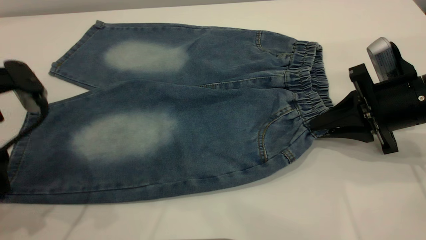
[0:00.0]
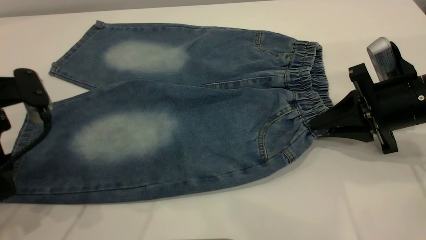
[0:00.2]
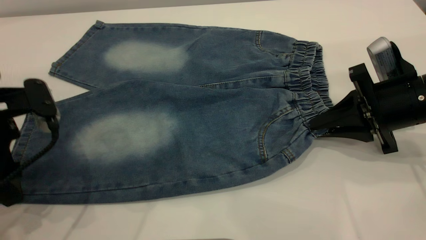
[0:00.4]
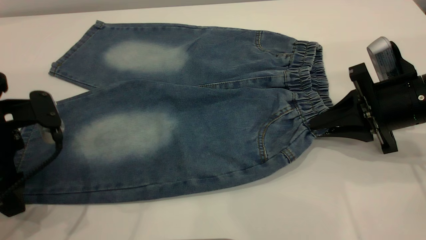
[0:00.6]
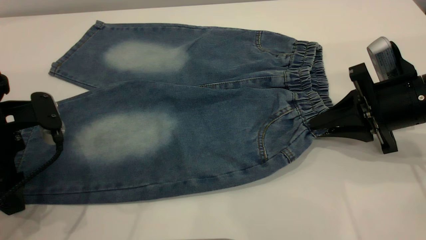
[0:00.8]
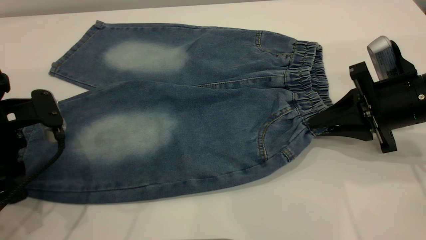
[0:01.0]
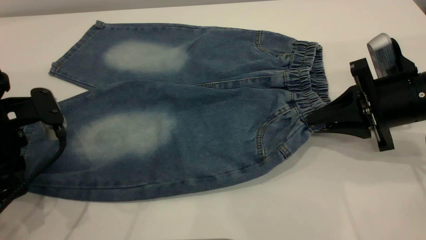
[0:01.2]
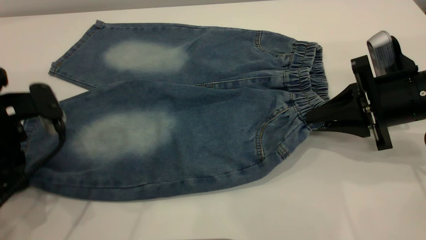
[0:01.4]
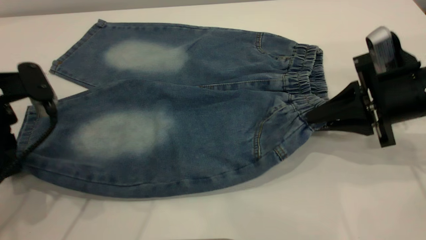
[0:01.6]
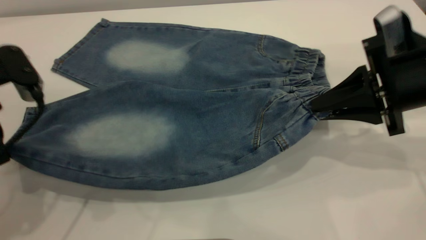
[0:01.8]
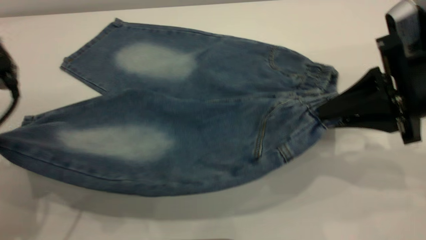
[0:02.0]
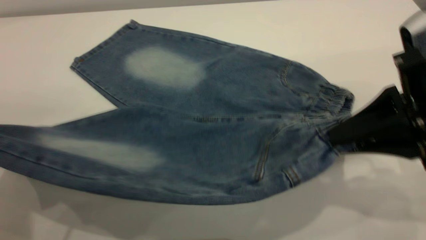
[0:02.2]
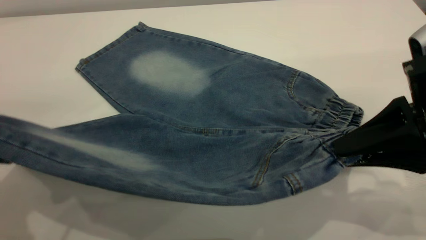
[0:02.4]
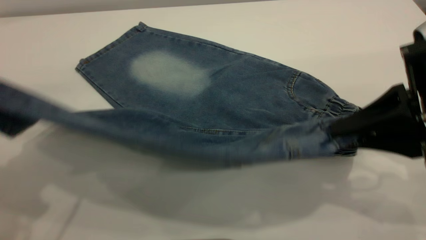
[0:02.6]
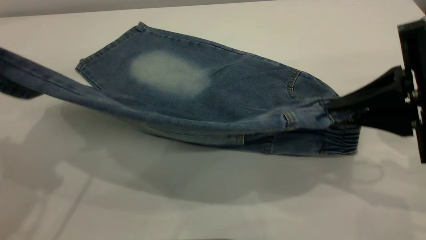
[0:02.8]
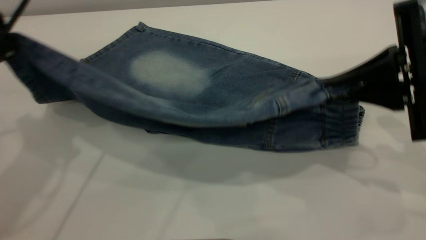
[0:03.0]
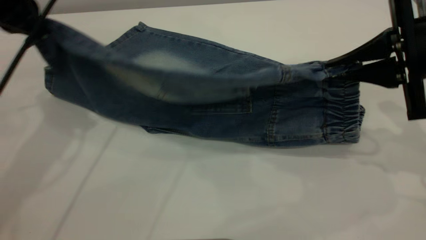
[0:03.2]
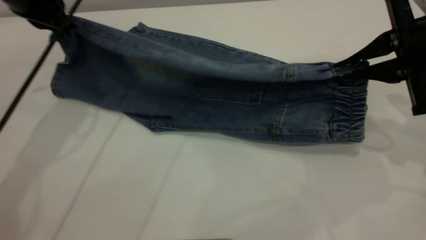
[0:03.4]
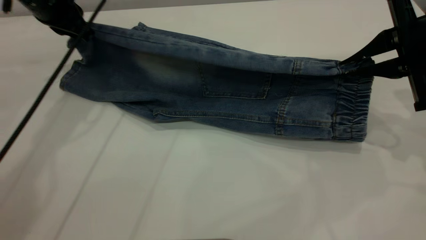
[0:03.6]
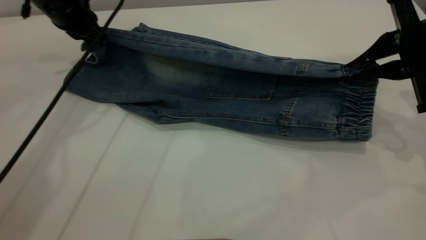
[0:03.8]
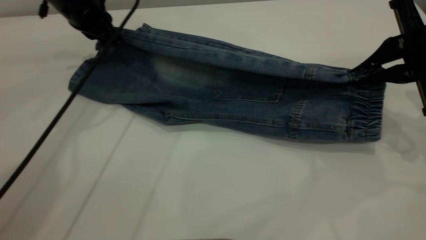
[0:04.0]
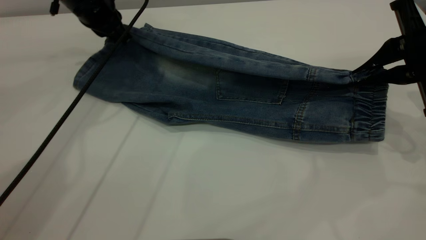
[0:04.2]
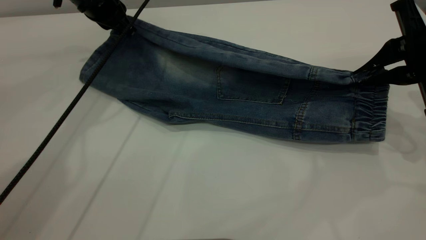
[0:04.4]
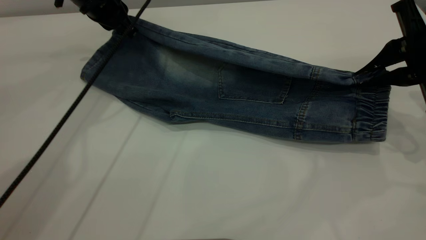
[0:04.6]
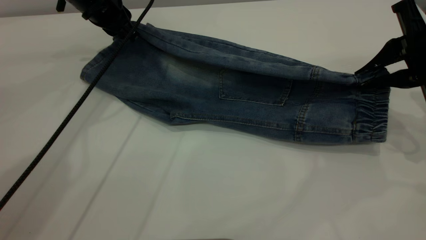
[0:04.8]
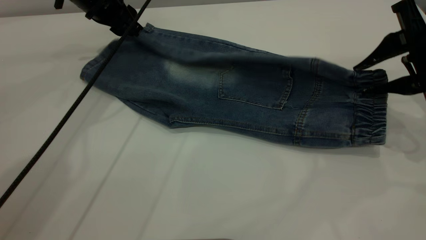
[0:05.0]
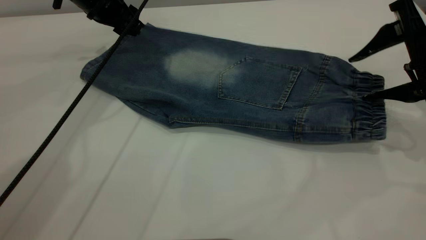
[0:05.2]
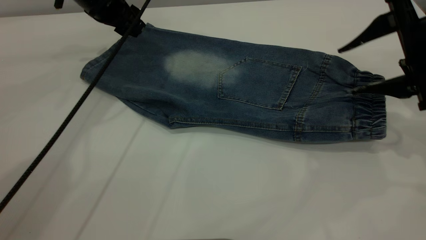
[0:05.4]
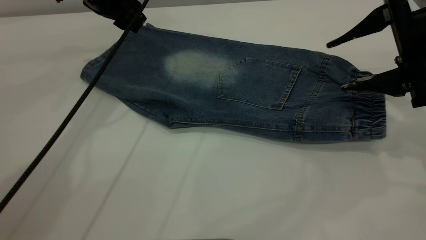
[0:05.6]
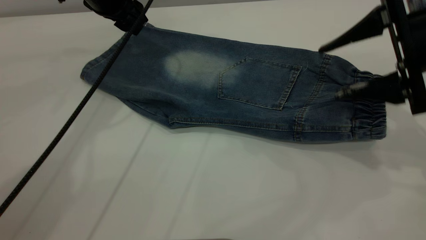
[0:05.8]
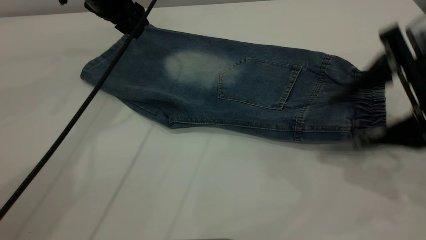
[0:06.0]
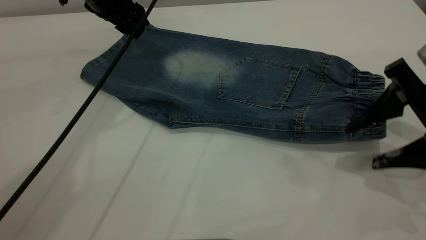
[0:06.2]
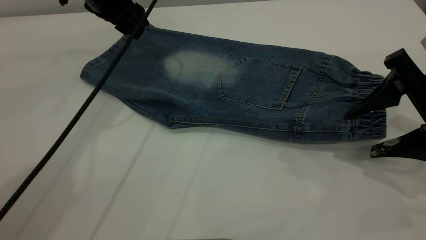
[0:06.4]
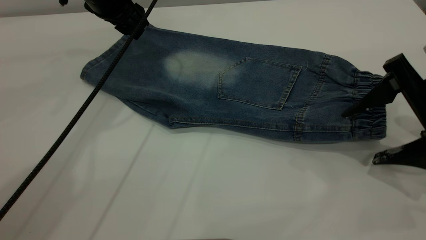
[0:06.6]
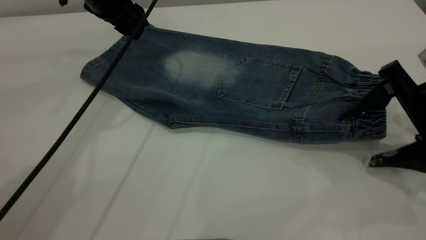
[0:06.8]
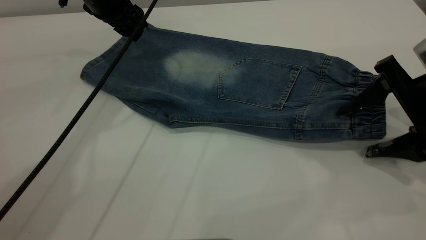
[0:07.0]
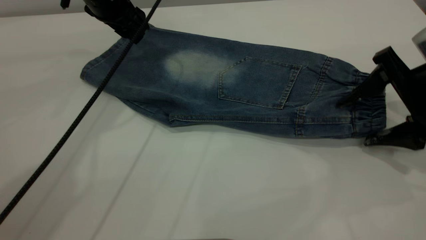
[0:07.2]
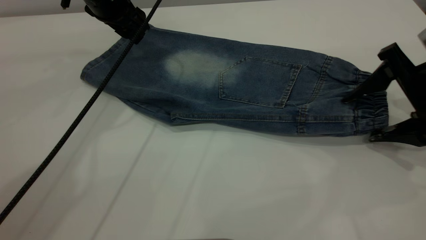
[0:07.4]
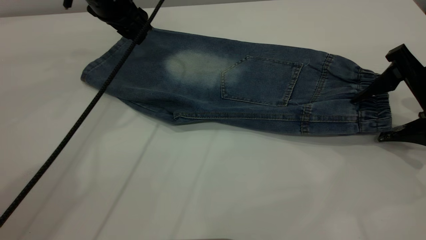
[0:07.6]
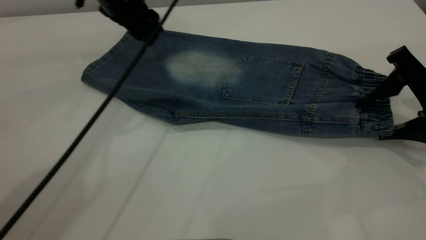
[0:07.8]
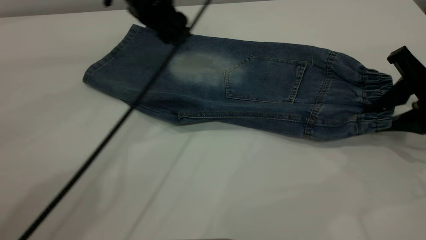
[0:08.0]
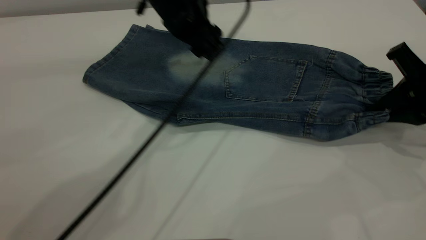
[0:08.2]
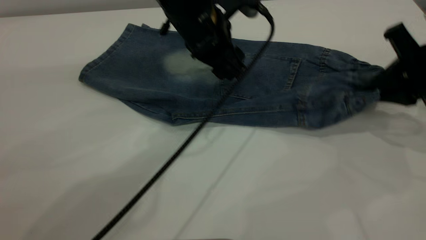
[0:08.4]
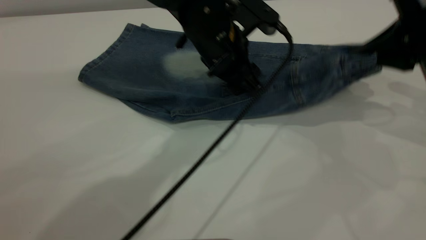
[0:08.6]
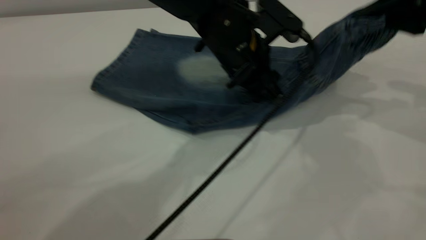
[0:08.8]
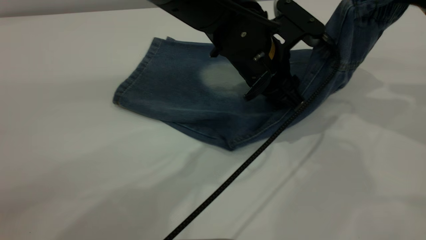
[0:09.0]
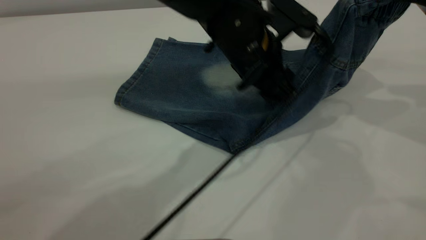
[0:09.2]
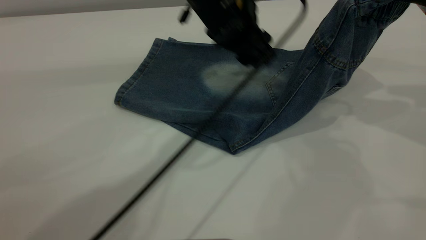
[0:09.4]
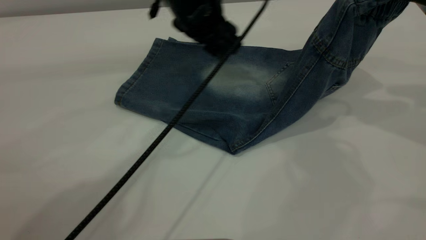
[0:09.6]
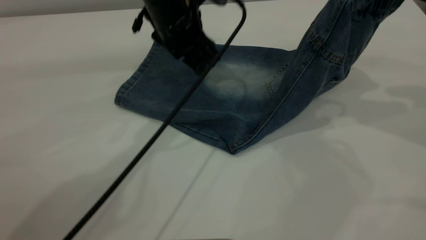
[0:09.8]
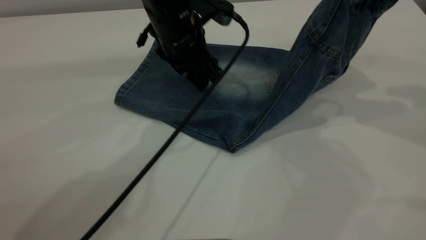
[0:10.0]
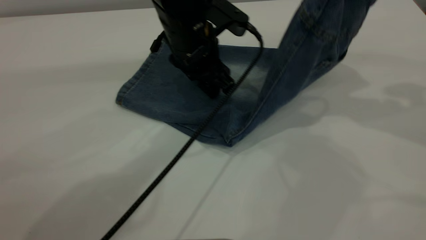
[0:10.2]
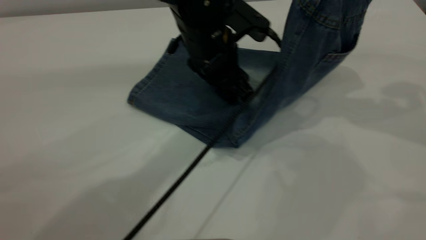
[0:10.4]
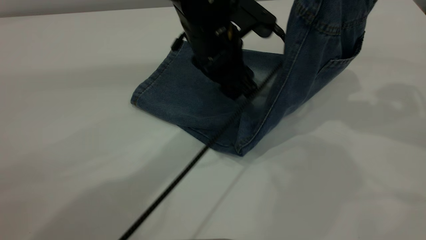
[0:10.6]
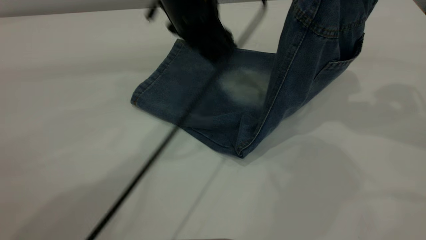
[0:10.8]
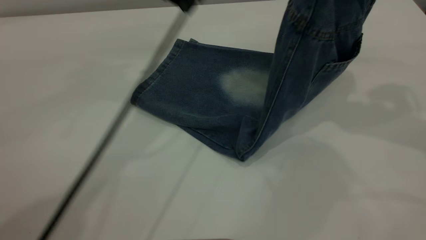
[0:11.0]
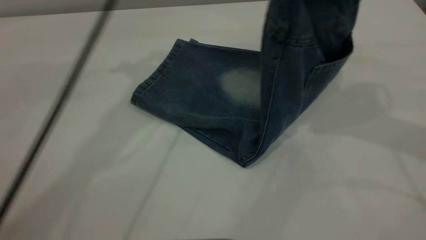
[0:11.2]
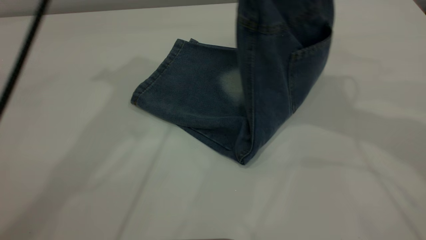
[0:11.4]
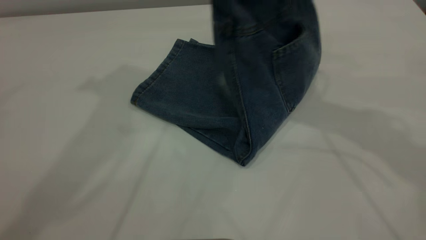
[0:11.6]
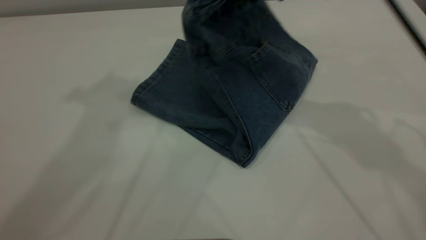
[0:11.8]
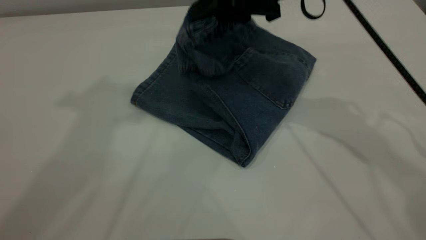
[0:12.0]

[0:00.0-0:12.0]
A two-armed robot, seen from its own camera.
Step, 0:00.0 to 0:05.8: Fold the bottom of the pants upward.
0:00.0 to 0:01.6: The left gripper closes up.
0:01.6 to 0:03.0: The left gripper moves upward and forward, some 10 cm. The right gripper travels upward by roughly 5 cm.
0:03.0 to 0:04.4: The right gripper travels forward by about 5 cm, while the left gripper goes some 20 cm forward, downward and to the right.
0:04.4 to 0:06.0: The left gripper opens its fingers. Meanwhile the right gripper is displaced backward by approximately 5 cm, and opens.
0:06.0 to 0:07.6: The right gripper shifts by some 5 cm.
0:07.6 to 0:09.0: The left gripper moves to the right and backward, approximately 25 cm, while the right gripper heads upward, covering roughly 15 cm, and closes its fingers.
0:09.0 to 0:10.4: The left gripper is displaced to the left by approximately 5 cm.
0:10.4 to 0:12.0: The right gripper goes roughly 20 cm to the left. Meanwhile the left gripper shifts approximately 40 cm upward and to the left.

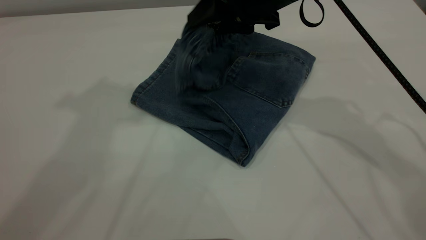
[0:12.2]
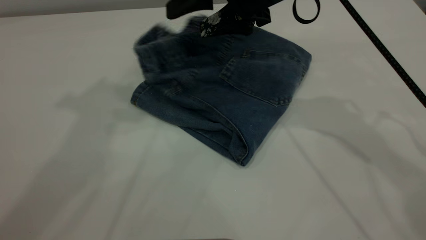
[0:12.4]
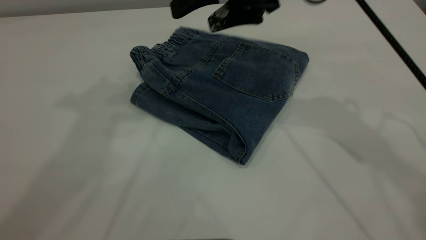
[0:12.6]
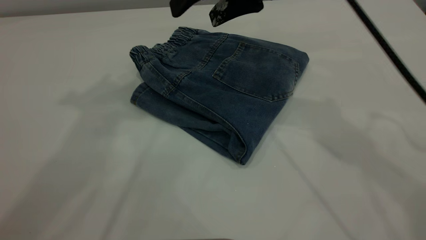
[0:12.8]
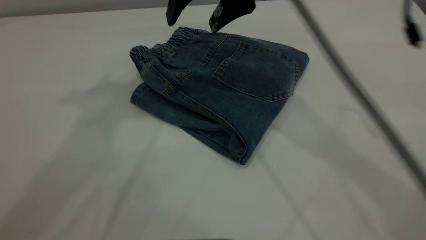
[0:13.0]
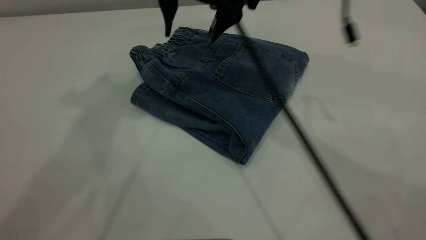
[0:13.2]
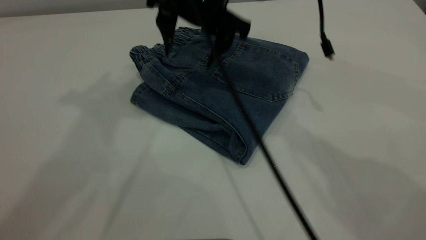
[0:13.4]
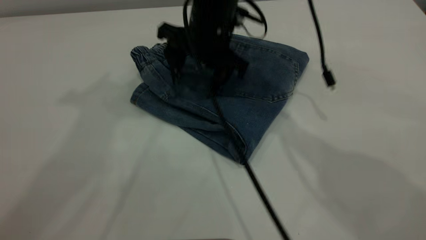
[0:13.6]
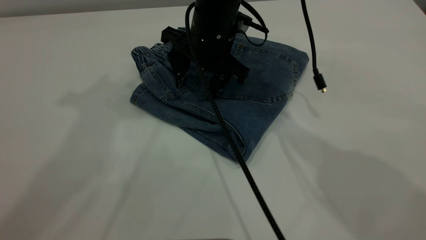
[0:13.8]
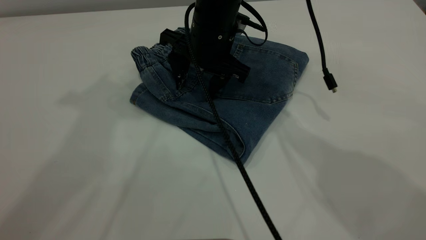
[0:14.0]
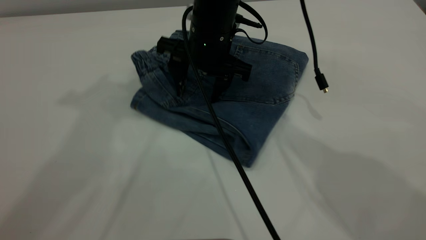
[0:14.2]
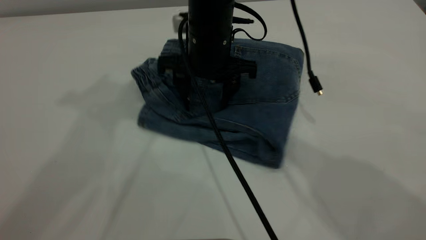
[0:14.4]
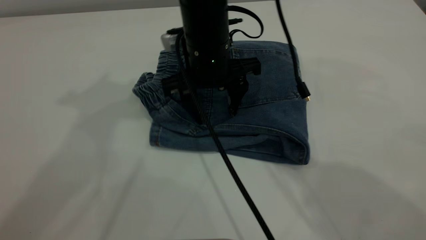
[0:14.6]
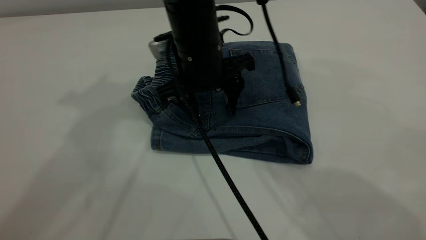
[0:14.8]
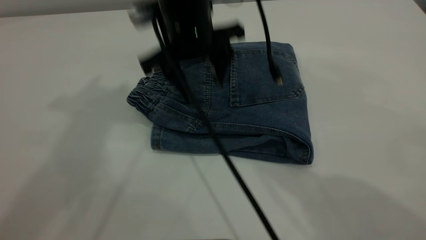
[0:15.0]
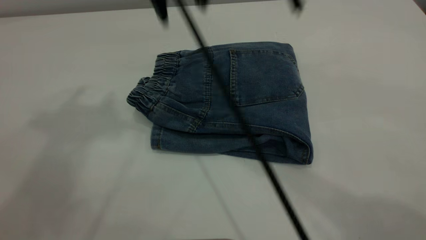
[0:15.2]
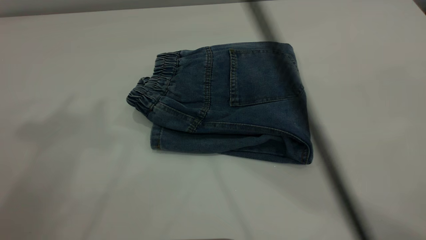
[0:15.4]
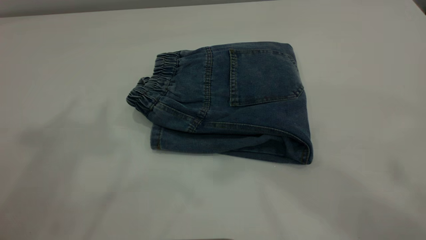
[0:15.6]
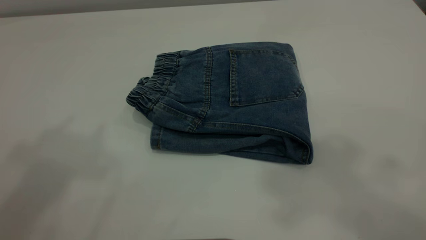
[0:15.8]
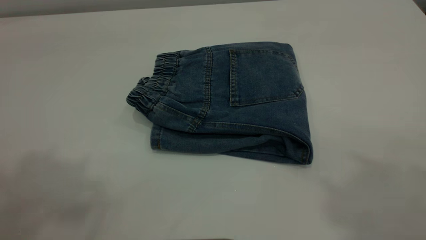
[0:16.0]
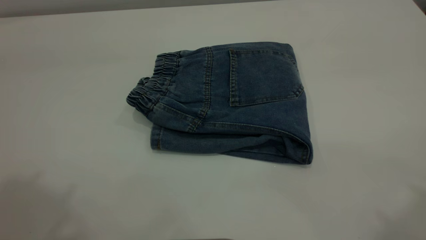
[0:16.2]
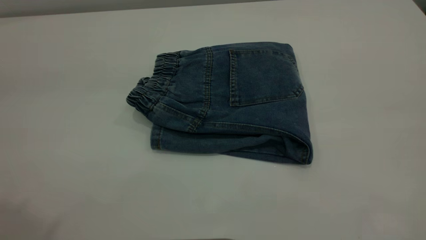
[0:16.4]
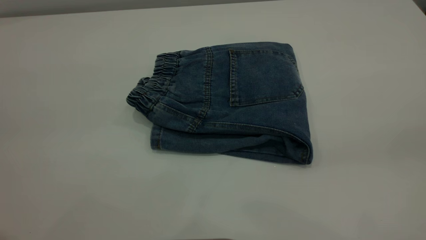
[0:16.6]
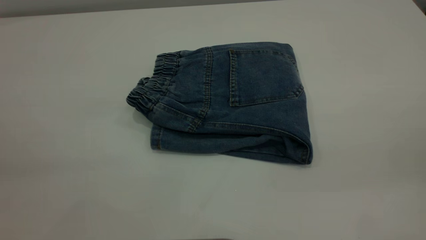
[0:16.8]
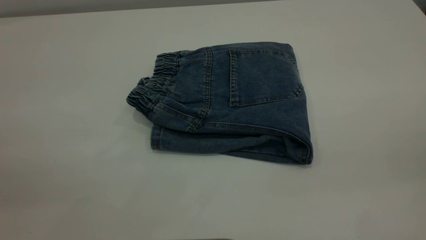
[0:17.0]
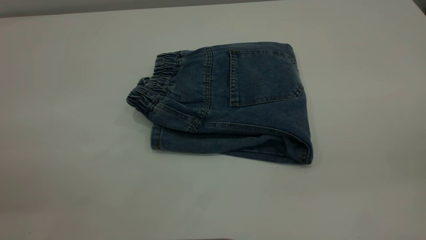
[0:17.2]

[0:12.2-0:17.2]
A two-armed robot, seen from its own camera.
0:12.2 to 0:13.8: The right gripper travels to the left and downward by about 10 cm.
0:13.8 to 0:15.6: The right gripper shifts approximately 40 cm upward; the left gripper travels backward and upward by approximately 10 cm.
